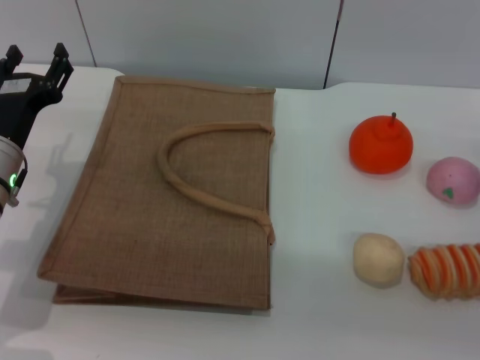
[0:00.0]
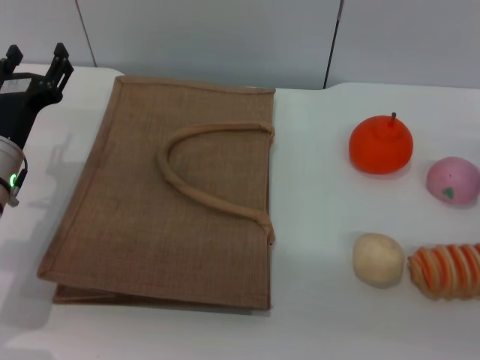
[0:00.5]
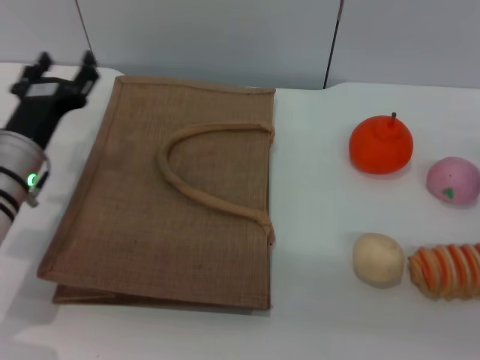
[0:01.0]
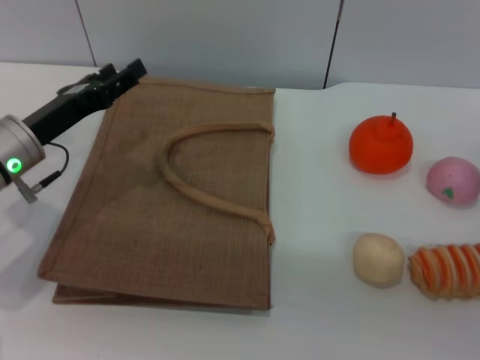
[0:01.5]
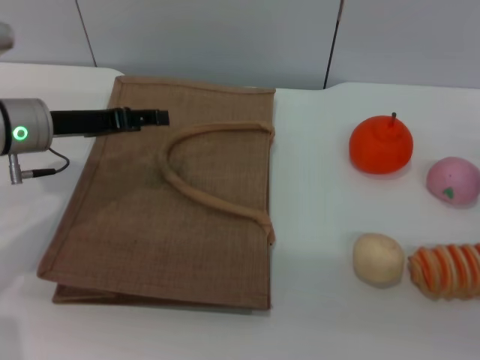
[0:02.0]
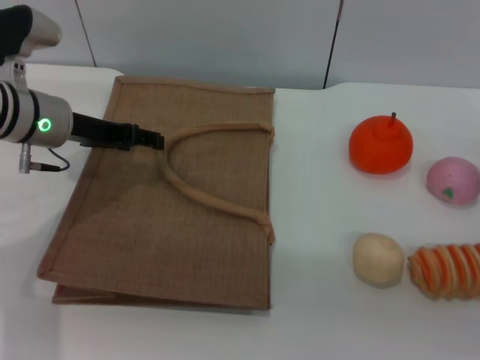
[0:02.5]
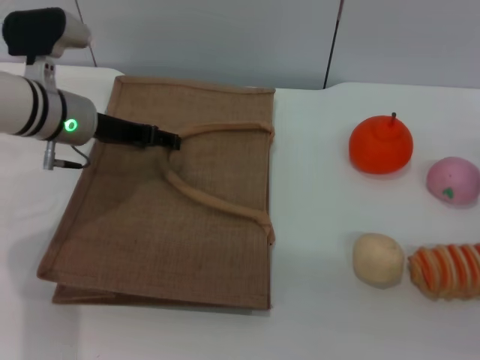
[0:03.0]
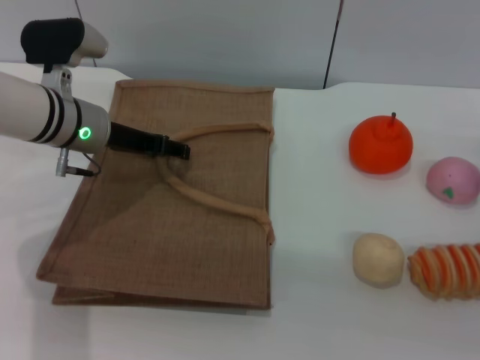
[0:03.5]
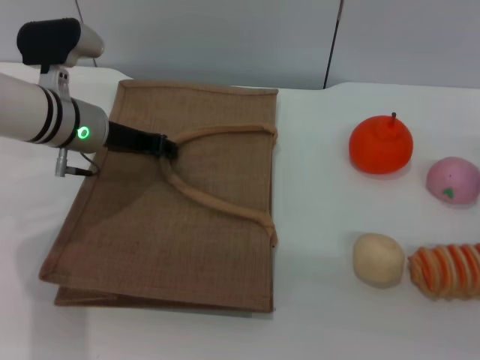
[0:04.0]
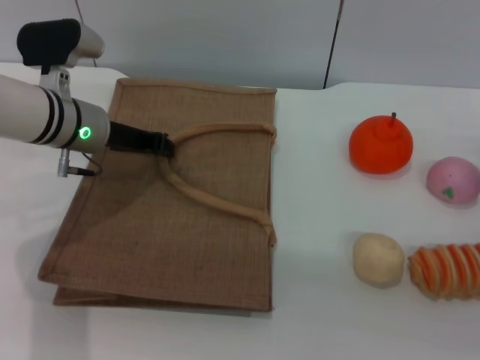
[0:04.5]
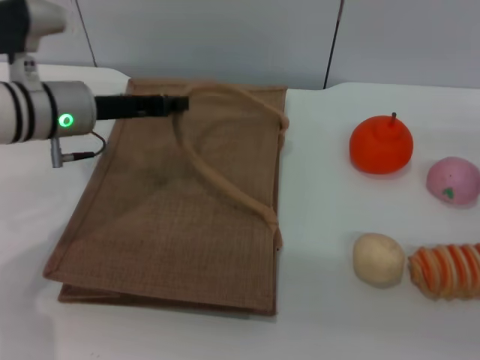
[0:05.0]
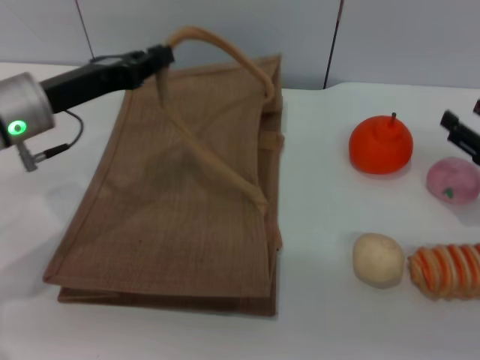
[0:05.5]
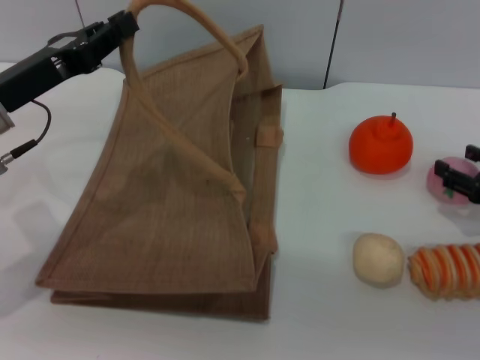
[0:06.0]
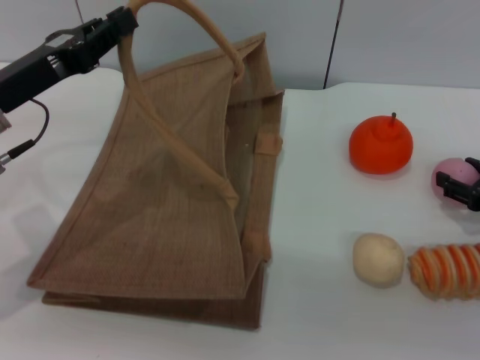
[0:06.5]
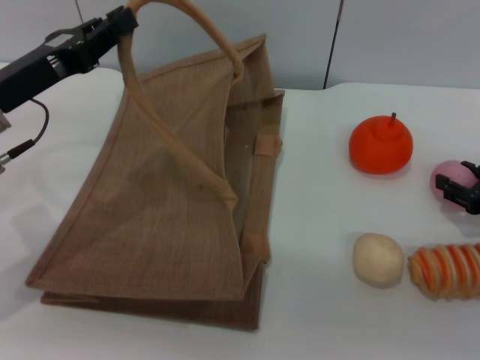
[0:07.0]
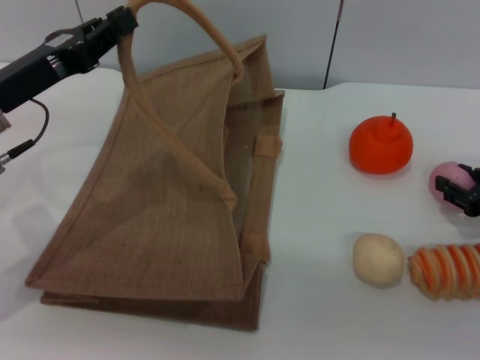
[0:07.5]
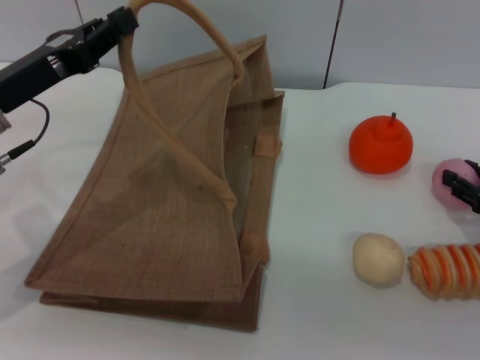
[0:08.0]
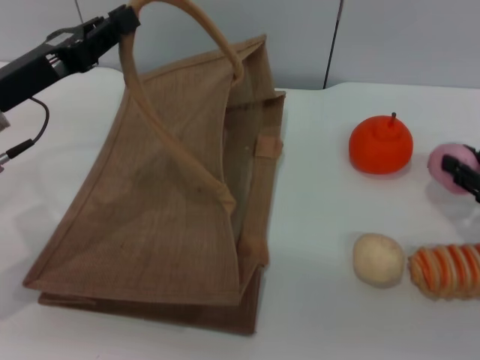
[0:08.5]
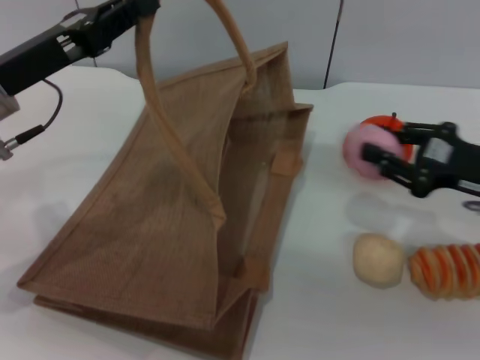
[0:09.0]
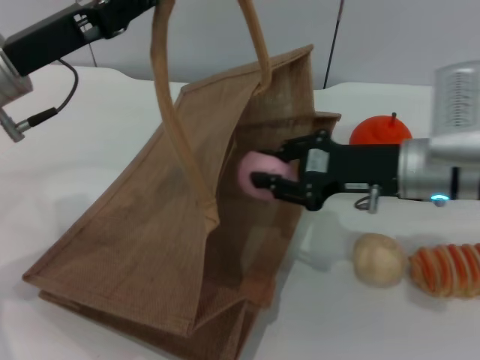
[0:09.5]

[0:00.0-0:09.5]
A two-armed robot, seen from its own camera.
Task of the whole recording: pick up the peach from the table and place it in the brown handbag.
Step, 0:00.0 to 0:04.5: Lift the woven bag with the left gripper to open it.
Step, 0:05.0 to 0:08.5: Pick up the peach with the right gripper.
0:00.0 to 0:02.0: The left gripper shifts roughly 10 cm upward and forward.
0:02.0 to 0:04.0: The left gripper goes about 5 cm to the right.
0:04.0 to 0:05.5: The left gripper shifts approximately 5 cm backward, and closes its fingers.
0:05.5 to 0:07.5: The right gripper closes its fingers.
0:07.5 to 0:09.5: The right gripper heads to the left, covering approximately 15 cm, and closes up.

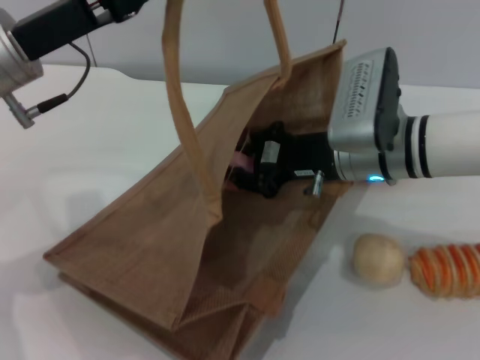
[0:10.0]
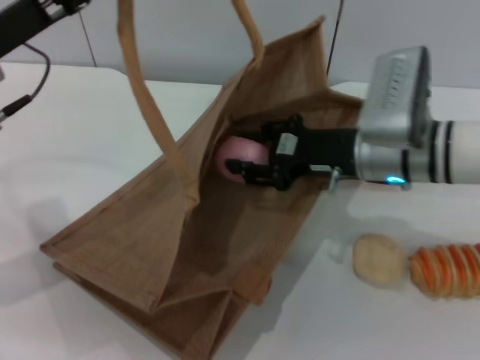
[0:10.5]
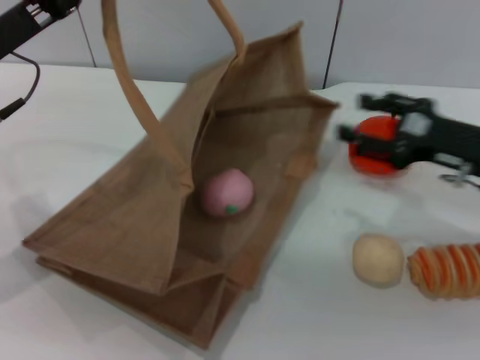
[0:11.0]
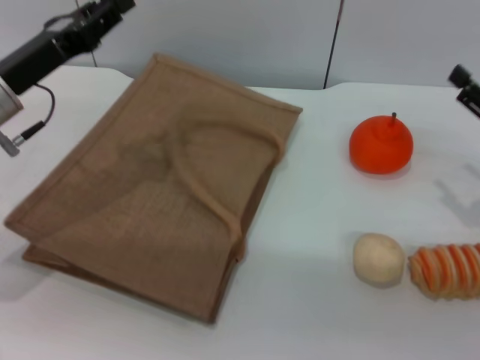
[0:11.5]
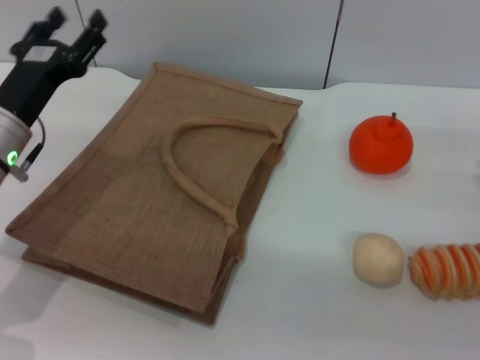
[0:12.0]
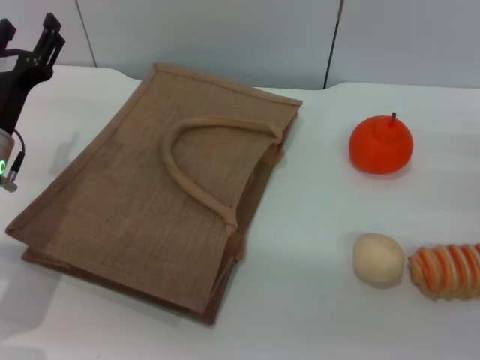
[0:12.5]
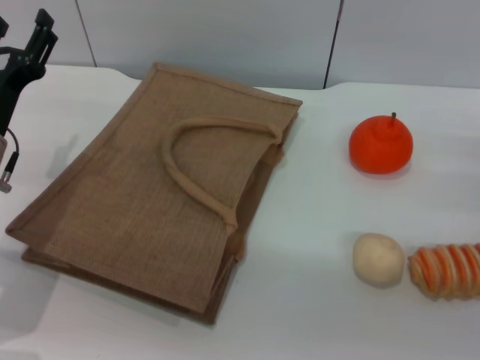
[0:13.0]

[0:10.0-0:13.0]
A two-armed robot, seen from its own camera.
Task of the whole recording: pick up the peach from the table and place it in the brown handbag.
0:10.0 to 0:11.5: The left gripper heads downward, covering some 5 cm. The right gripper goes roughly 20 cm to the right, and opens its fingers.
0:11.5 to 0:13.0: The left gripper shifts roughly 5 cm downward, and opens.

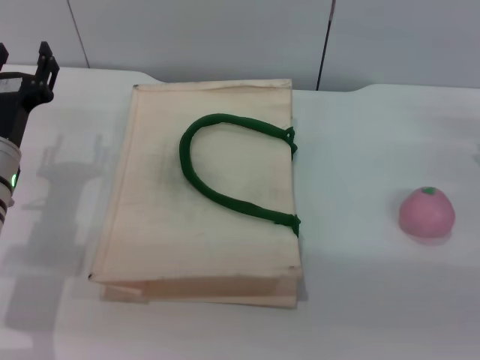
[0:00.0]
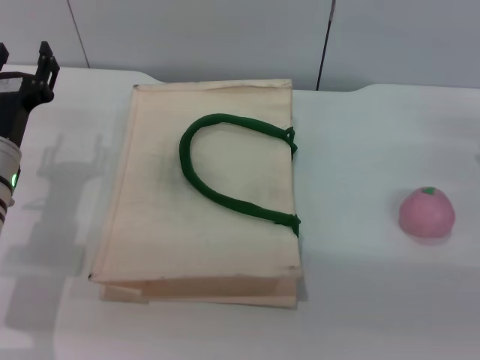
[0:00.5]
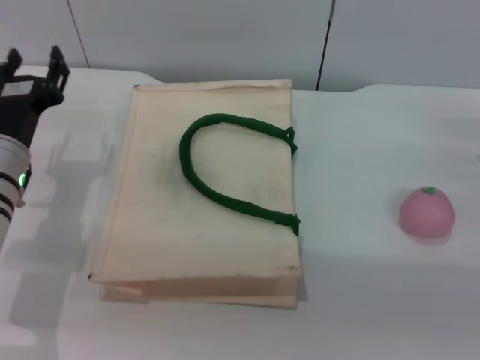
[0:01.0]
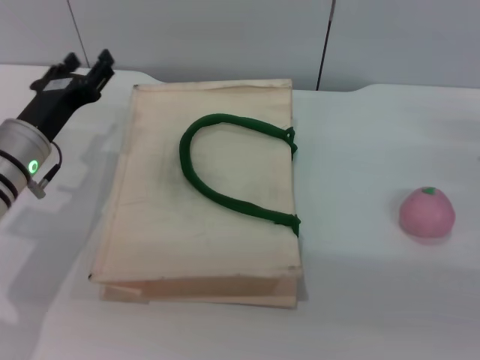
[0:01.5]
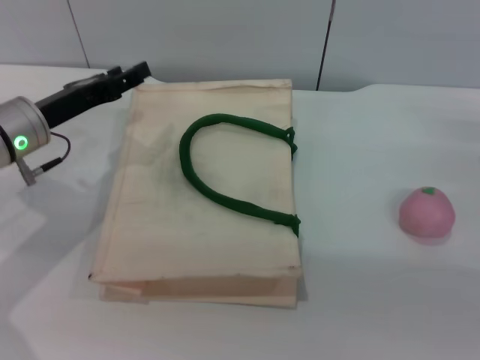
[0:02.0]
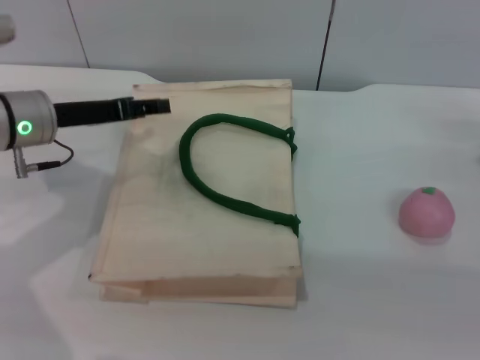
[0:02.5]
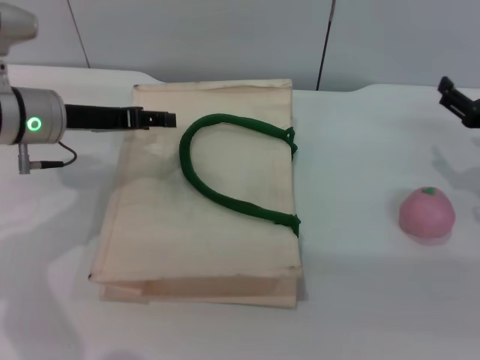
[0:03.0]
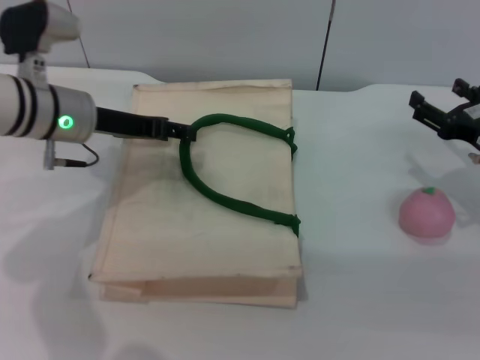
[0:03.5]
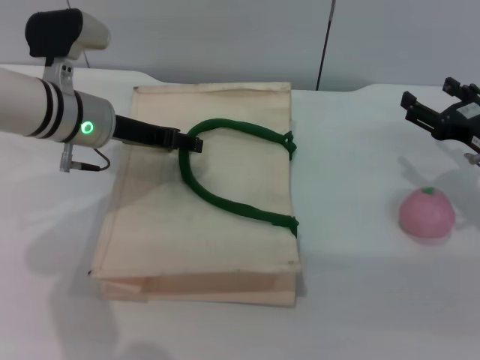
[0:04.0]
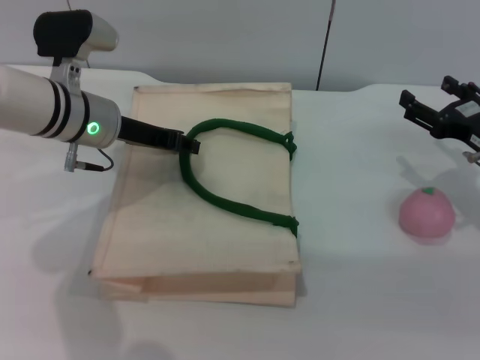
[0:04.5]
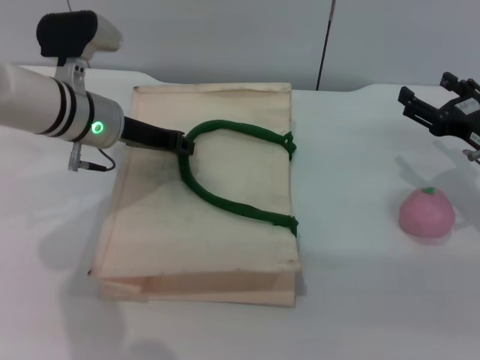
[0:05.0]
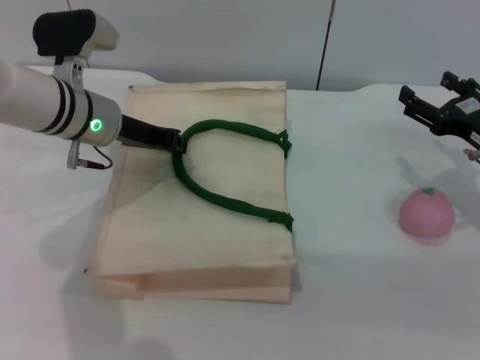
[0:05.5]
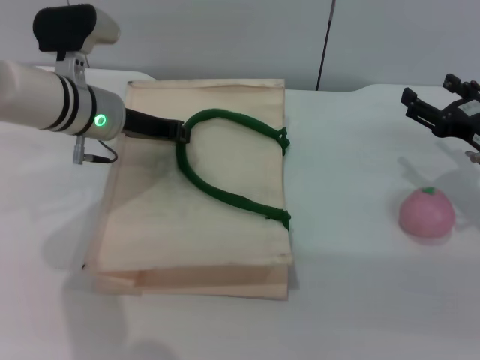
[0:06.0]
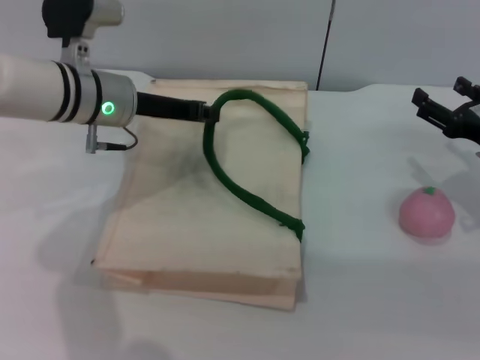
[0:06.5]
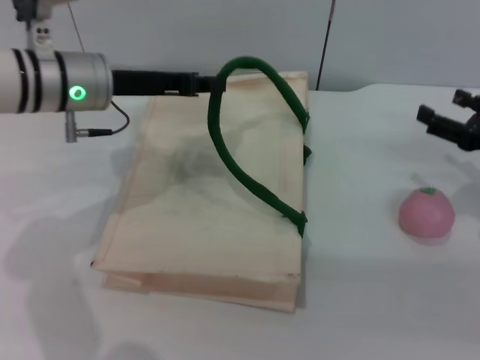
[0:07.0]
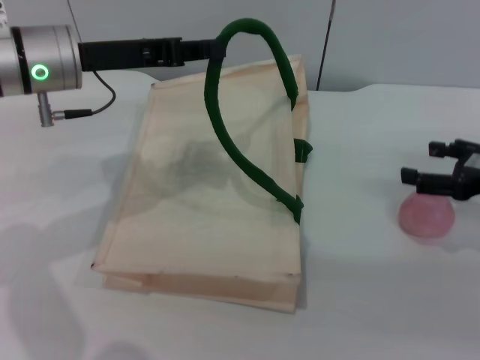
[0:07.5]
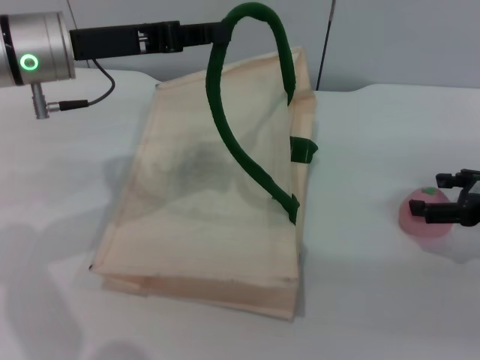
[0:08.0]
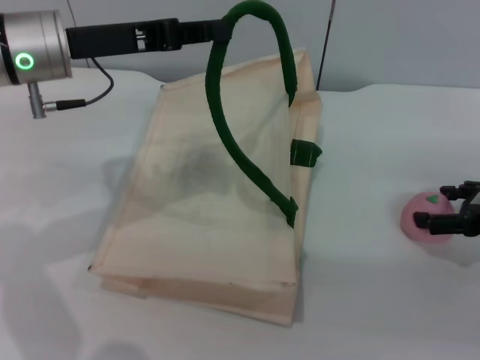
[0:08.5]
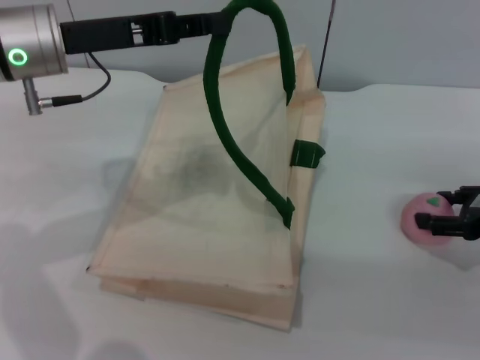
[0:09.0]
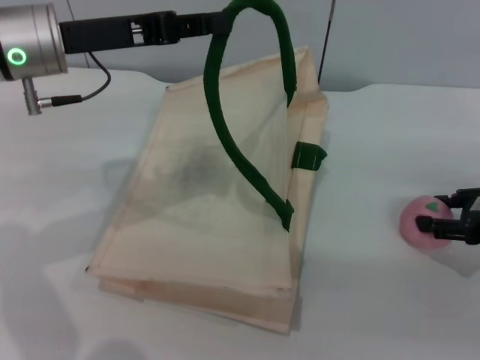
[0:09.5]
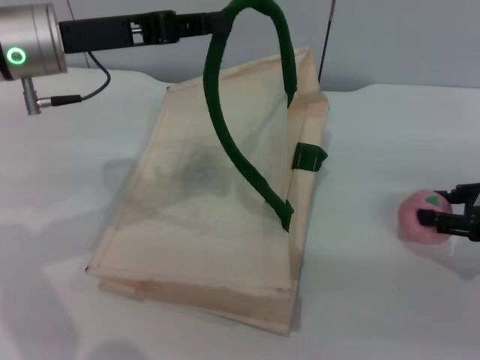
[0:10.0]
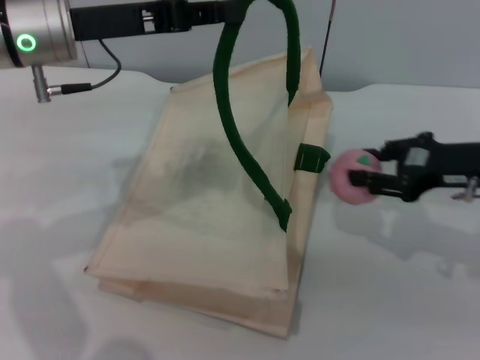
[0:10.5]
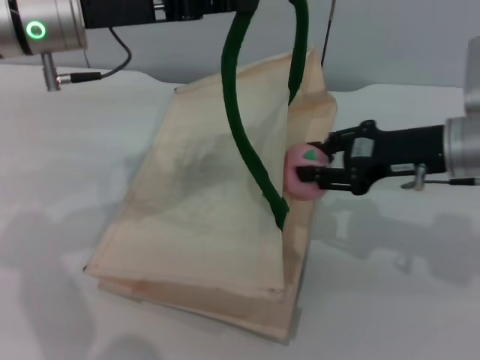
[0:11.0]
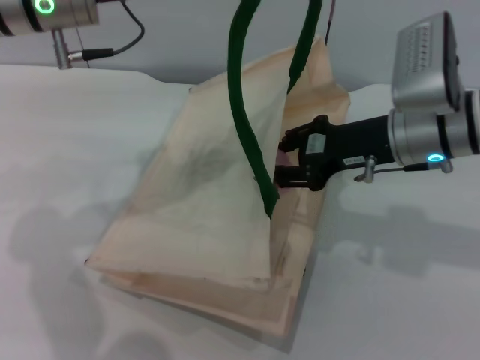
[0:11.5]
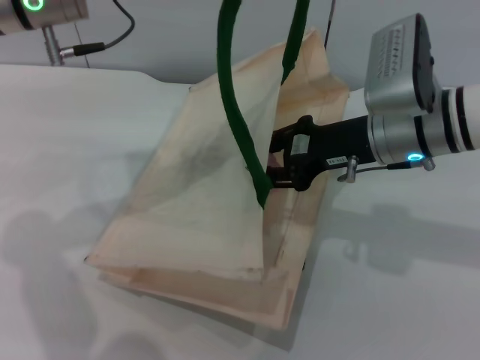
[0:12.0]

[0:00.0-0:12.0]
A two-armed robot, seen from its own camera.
Task of the whole recording: pick up the peach from the table and place it in the white handbag.
Step, 0:00.0 to 0:06.5: Lift the woven bag with the left gripper to open it.
Step, 0:07.0 to 0:10.0: Pick up the peach with the right gripper.
0:00.0 to 0:02.0: The left gripper changes place by about 5 cm.
0:02.0 to 0:04.0: The left gripper goes roughly 5 cm to the right.
0:04.0 to 0:06.0: The left gripper closes its fingers.
0:06.0 to 0:08.0: The right gripper changes place by about 5 cm; the left gripper is displaced upward by roughly 10 cm.
0:08.0 to 0:10.0: The right gripper closes its fingers.
0:10.0 to 0:12.0: The right gripper shifts approximately 20 cm to the left.
